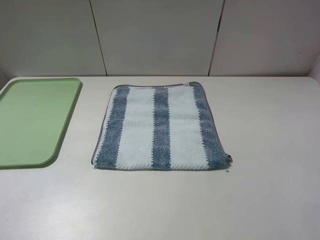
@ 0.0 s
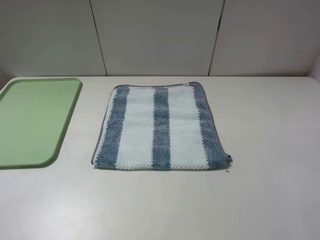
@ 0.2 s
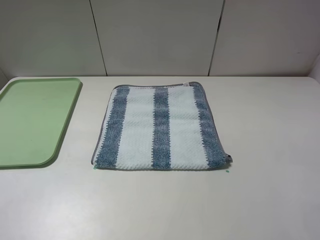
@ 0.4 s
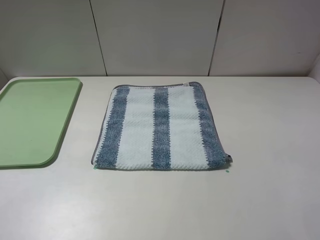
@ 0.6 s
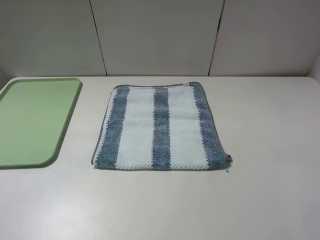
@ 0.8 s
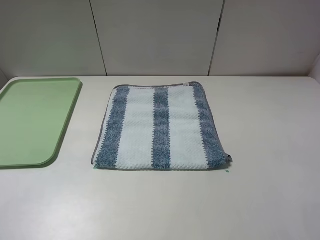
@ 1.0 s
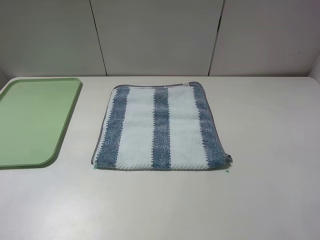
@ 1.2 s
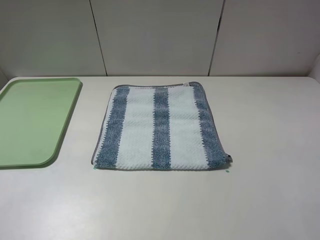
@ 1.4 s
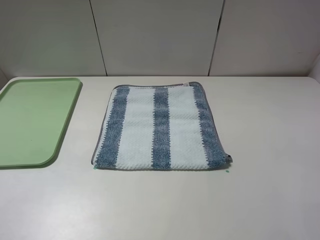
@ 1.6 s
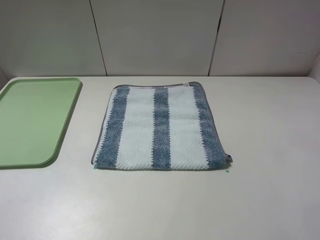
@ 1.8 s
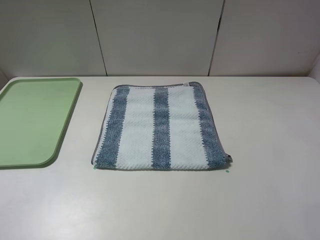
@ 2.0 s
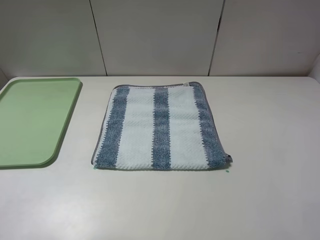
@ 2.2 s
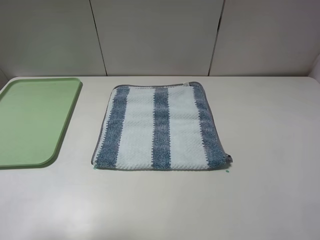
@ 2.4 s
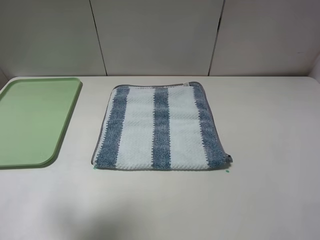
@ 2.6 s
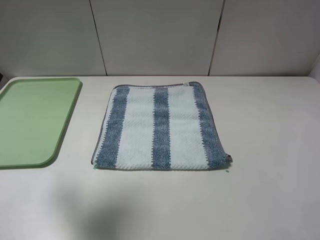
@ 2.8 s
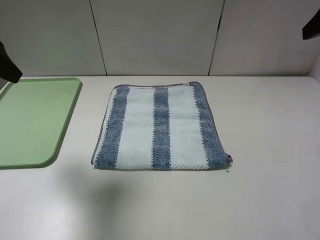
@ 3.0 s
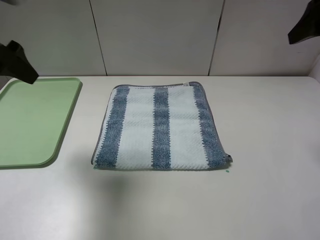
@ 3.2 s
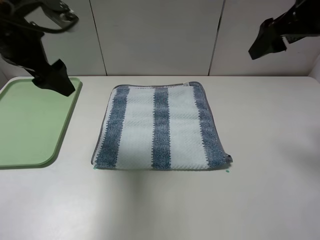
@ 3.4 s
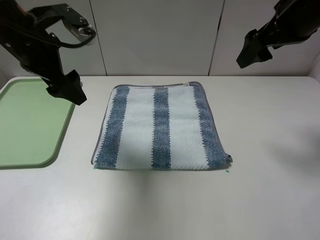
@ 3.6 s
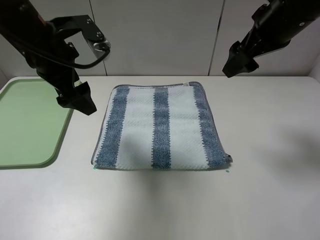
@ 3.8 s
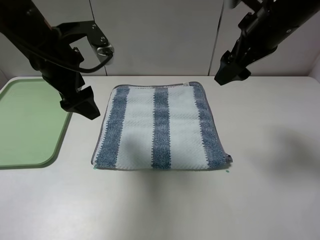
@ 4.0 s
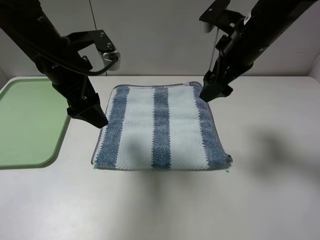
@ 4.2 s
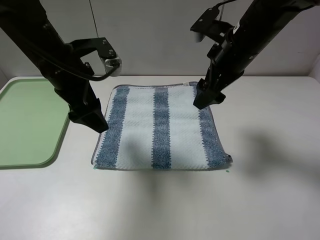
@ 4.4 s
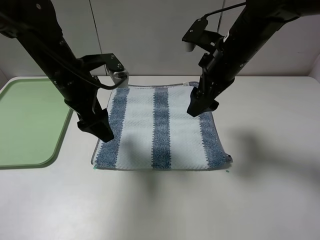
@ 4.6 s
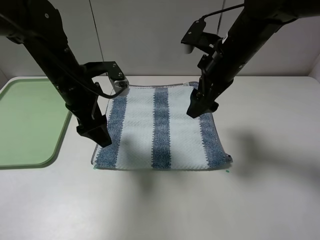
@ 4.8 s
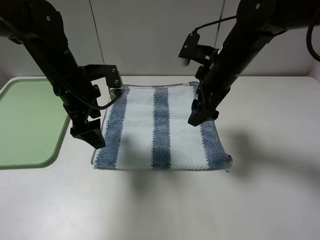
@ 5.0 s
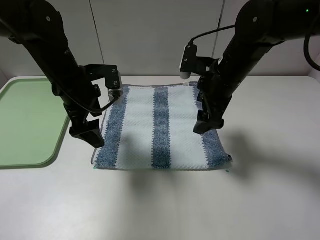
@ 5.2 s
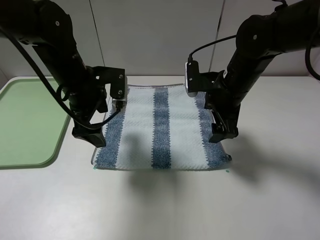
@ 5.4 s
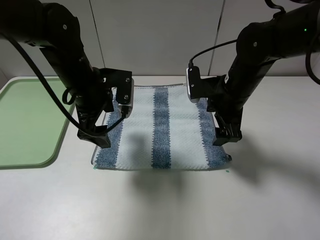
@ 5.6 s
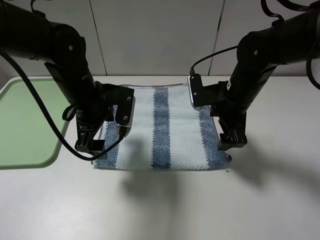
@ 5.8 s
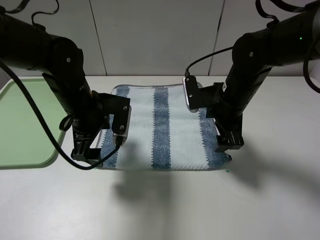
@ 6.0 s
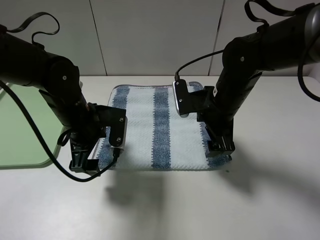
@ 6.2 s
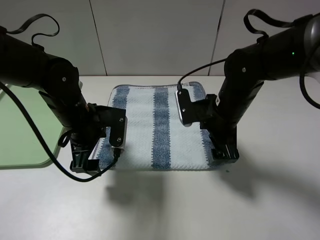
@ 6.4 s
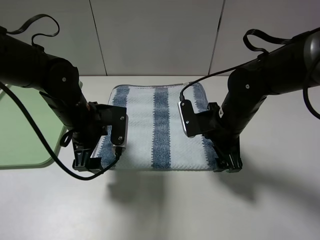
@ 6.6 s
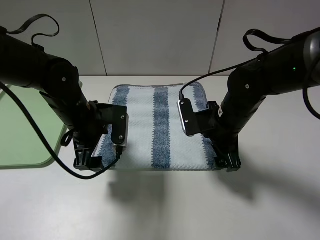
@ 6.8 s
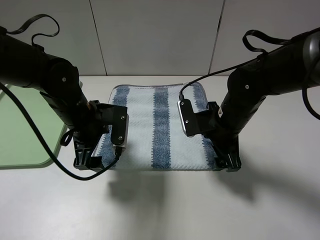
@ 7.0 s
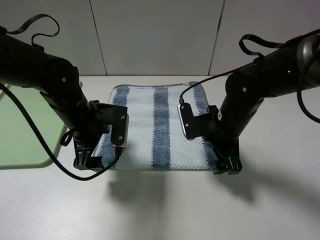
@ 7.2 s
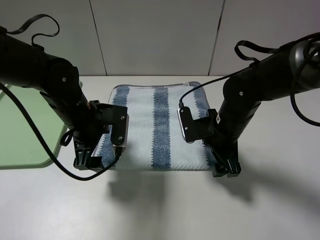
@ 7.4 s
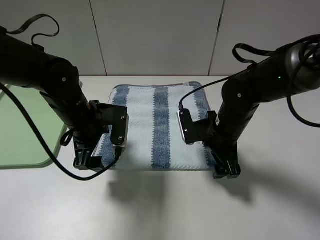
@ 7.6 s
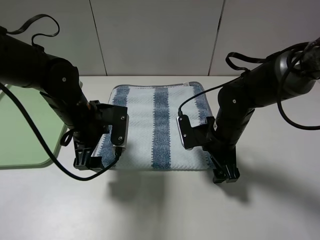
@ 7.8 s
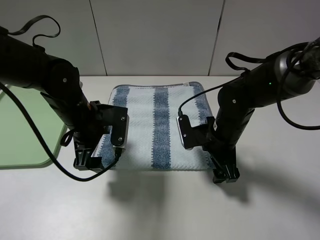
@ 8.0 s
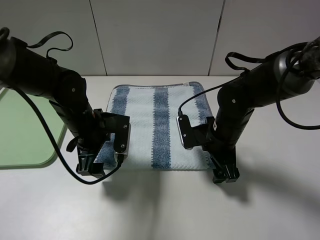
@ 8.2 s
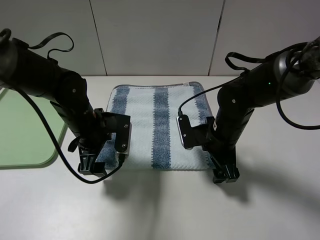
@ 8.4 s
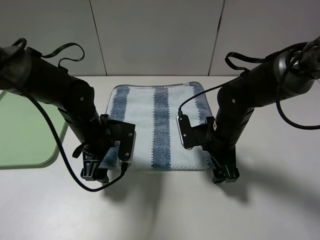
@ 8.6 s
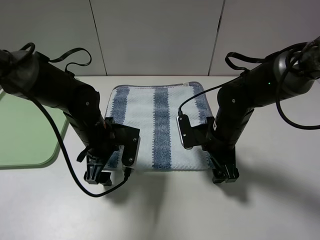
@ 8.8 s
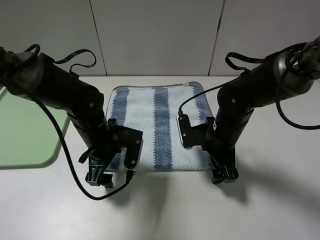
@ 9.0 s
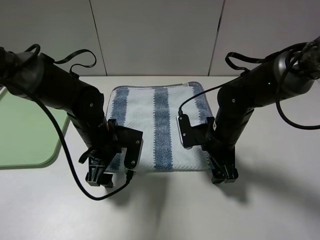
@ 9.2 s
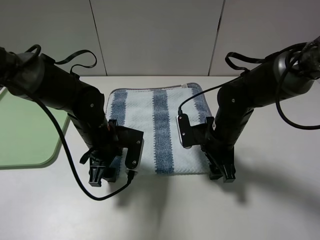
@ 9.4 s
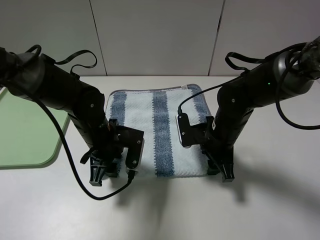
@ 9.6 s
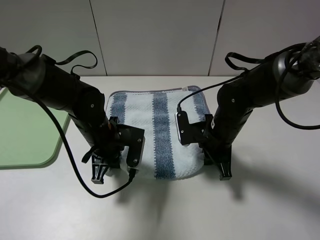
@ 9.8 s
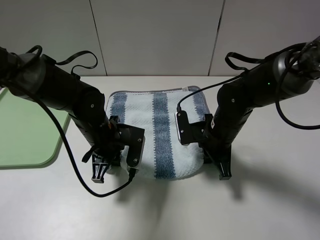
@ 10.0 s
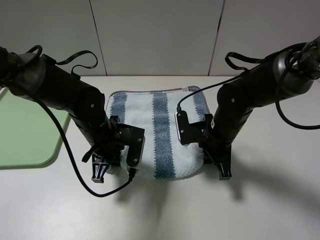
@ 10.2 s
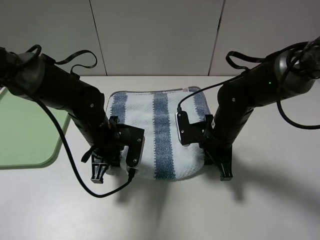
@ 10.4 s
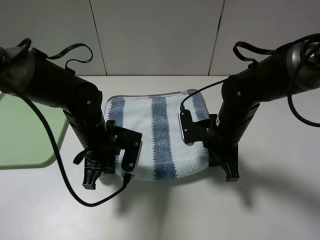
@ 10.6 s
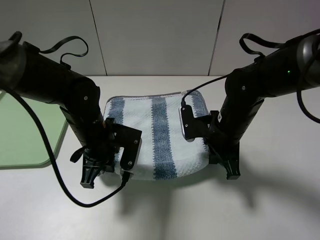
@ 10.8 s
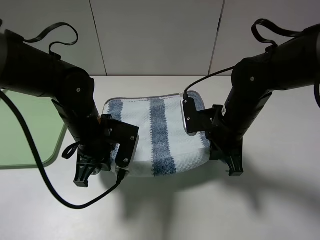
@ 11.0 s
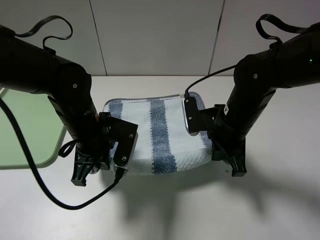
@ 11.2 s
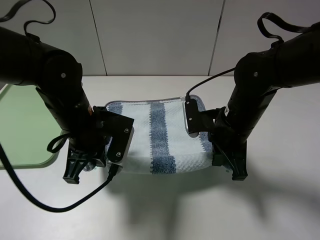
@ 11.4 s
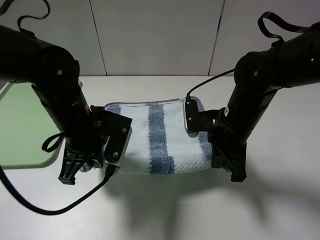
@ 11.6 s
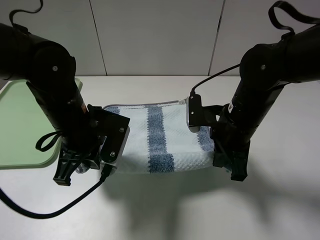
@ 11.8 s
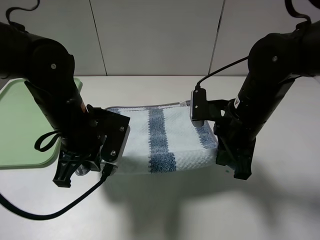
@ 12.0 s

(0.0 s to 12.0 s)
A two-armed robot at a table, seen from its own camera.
Step, 0.0 s - 10.0 s: Grasp the blue white towel with the left gripper.
0.0 s - 1.6 s: Neither gripper changes place.
1.6 s - 3.0 s: Both grippers travel together forward, some 25 cm.
3.0 s - 4.4 s: The left gripper shifts approximately 15 cm to the right and downward; the right gripper heads to the left and downward, covering some 20 cm.
4.4 s - 6.0 s: The grippers both shift downward by approximately 10 cm.
6.0 s - 7.6 s: The right gripper goes roughly 5 cm downward.
7.6 s - 9.0 s: The left gripper moves approximately 5 cm.
9.0 s - 10.4 s: The left gripper closes. The right gripper closes its fingers.
10.4 s - 12.0 s: The grippers both shift upward by approximately 10 cm.

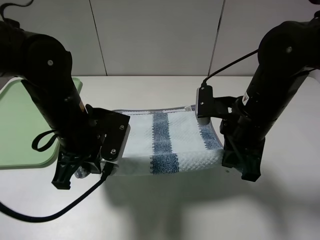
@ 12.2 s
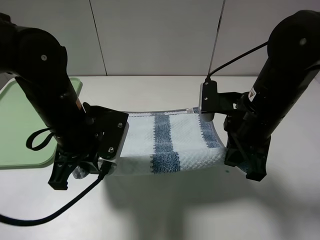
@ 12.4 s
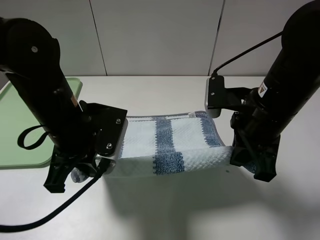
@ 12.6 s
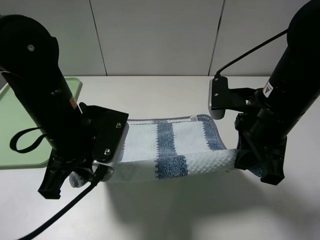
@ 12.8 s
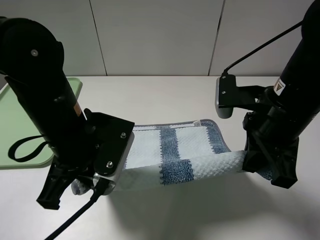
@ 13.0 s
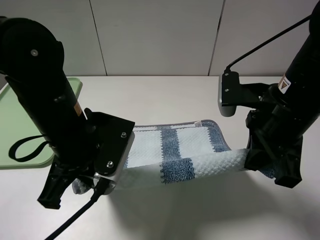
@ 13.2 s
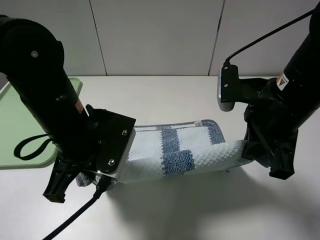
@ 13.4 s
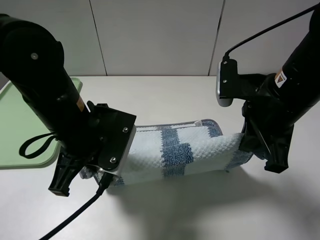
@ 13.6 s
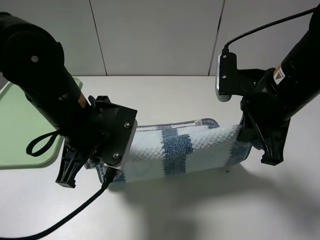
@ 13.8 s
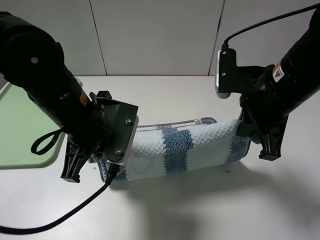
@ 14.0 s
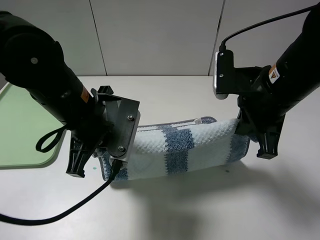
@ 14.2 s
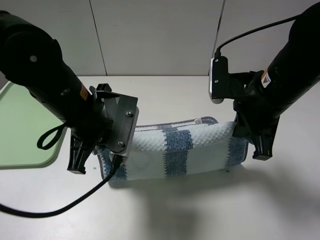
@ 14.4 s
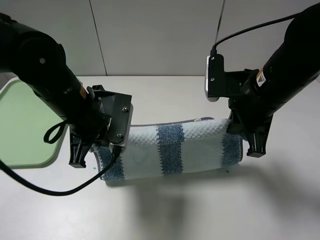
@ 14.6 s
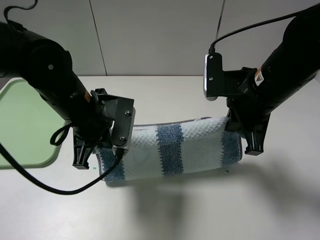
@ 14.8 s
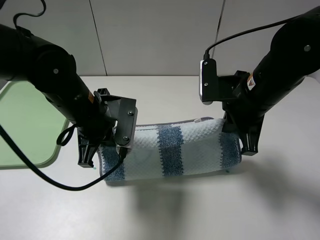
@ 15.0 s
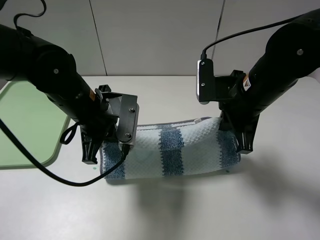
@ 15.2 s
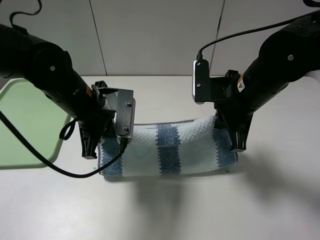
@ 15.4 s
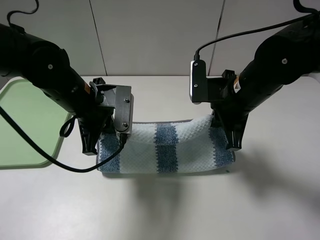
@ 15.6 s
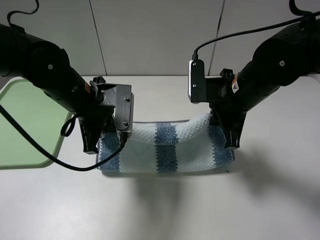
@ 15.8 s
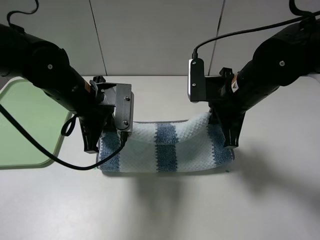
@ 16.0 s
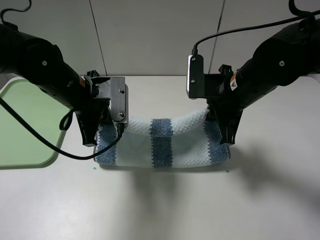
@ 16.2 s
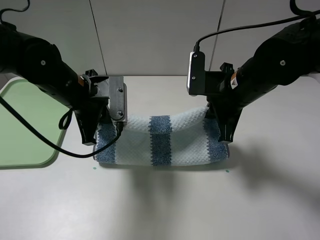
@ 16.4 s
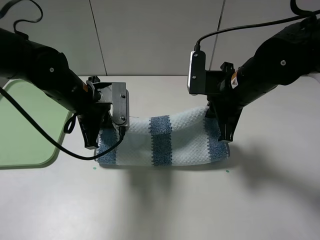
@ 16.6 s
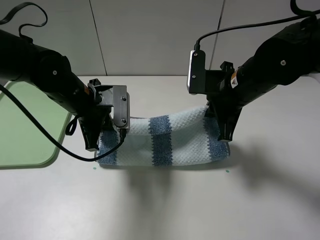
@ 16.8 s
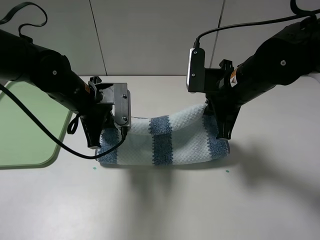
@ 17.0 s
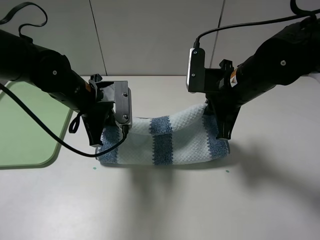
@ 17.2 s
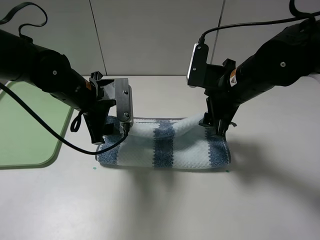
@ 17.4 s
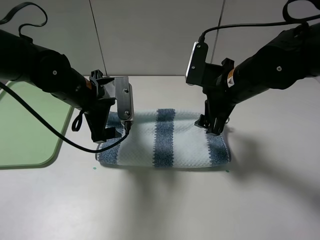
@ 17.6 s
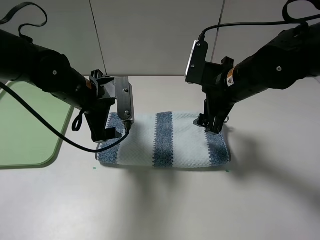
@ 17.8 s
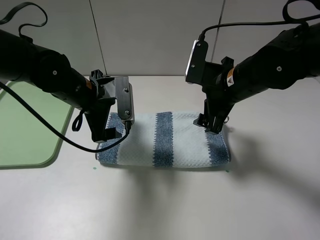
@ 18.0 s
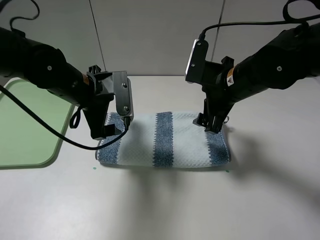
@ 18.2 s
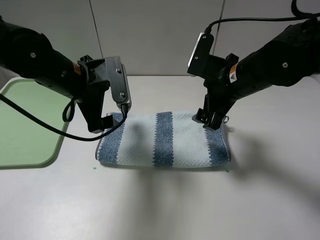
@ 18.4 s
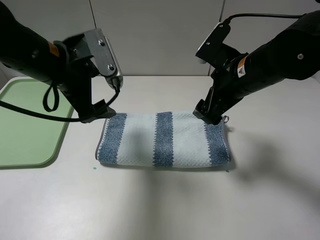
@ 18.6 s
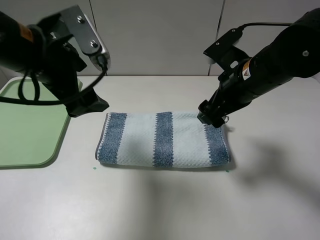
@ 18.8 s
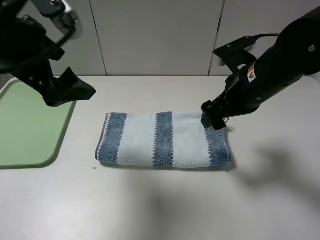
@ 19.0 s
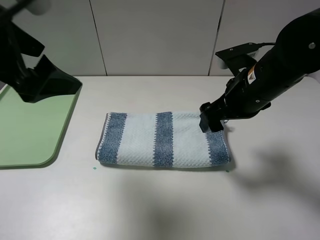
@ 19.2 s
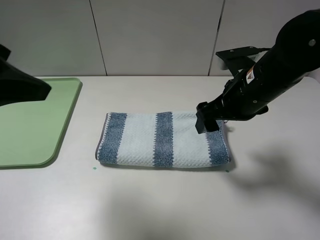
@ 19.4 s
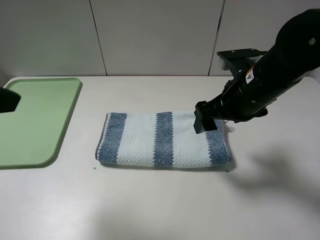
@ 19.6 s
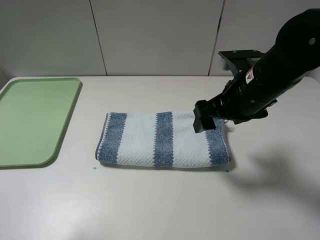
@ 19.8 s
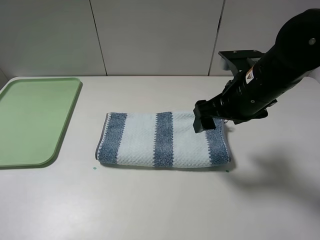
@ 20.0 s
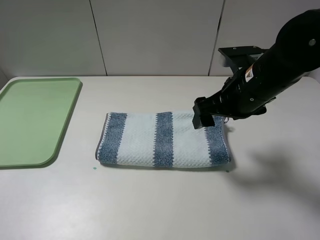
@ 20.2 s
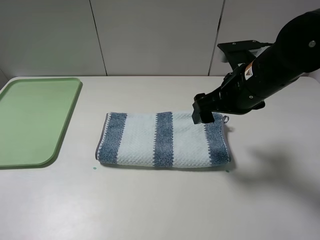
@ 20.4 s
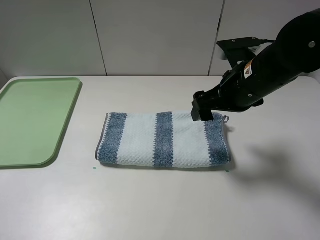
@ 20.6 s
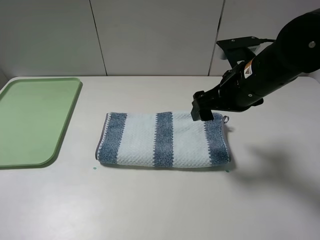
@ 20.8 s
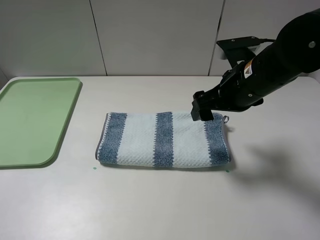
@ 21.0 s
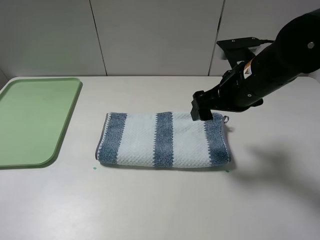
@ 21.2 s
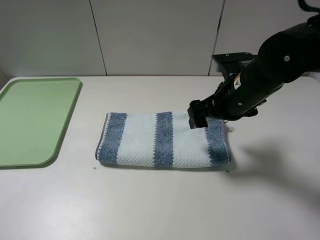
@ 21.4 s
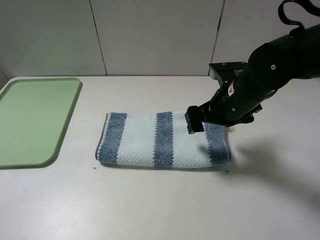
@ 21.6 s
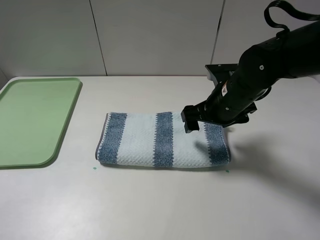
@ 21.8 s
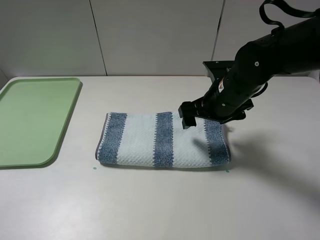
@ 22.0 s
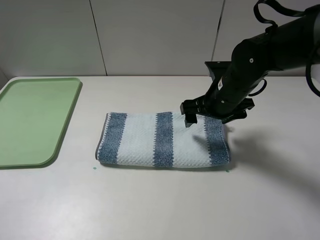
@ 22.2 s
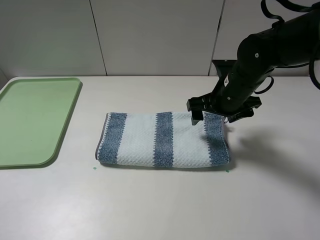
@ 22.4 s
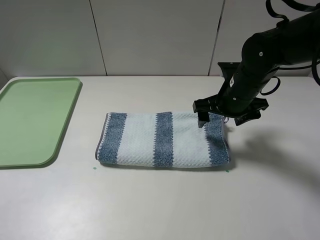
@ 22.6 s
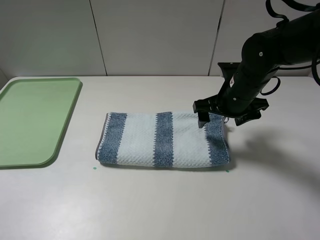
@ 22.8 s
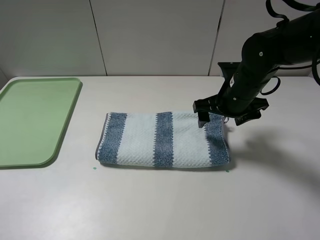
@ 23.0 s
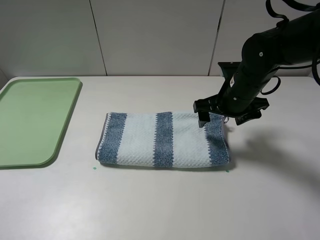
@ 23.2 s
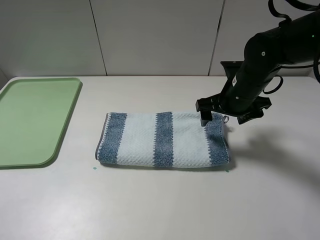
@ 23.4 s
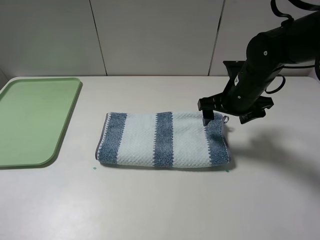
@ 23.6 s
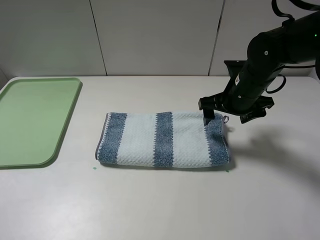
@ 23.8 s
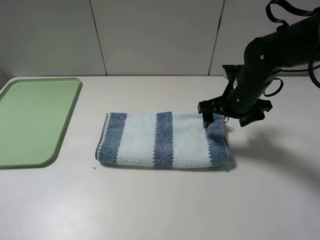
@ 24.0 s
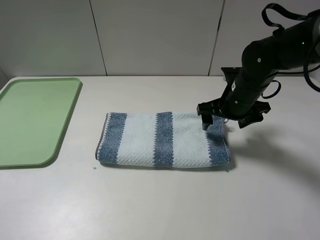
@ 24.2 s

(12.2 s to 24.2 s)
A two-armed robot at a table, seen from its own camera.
Step, 12.2 s - 18.0 s: Fold the blue white towel upwards with the left gripper.
12.2 s - 13.8 s: The right gripper changes place by approximately 5 cm.
13.8 s - 15.2 s: The left gripper changes place by some 5 cm; the right gripper moves about 5 cm.
16.6 s - 18.2 s: The right gripper opens up. Meanwhile the left gripper opens.
18.2 s - 19.8 s: The left gripper is displaced backward, upward and to the left by roughly 30 cm.
19.8 s - 21.2 s: The left gripper heads downward and backward, covering about 5 cm.
21.2 s - 22.6 s: The right gripper moves downward and forward, approximately 5 cm.
22.6 s - 24.2 s: There are only small adjustments of the grippers.
